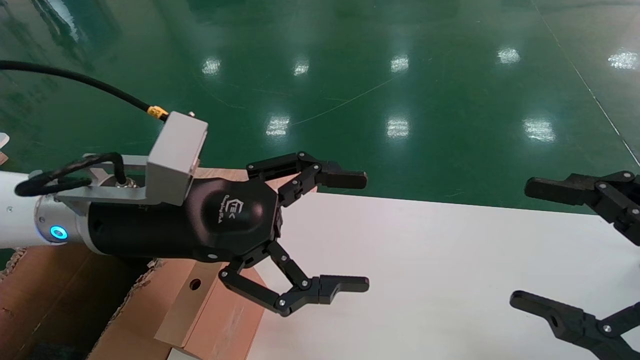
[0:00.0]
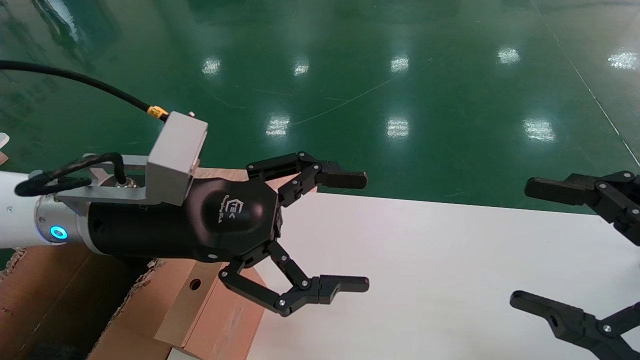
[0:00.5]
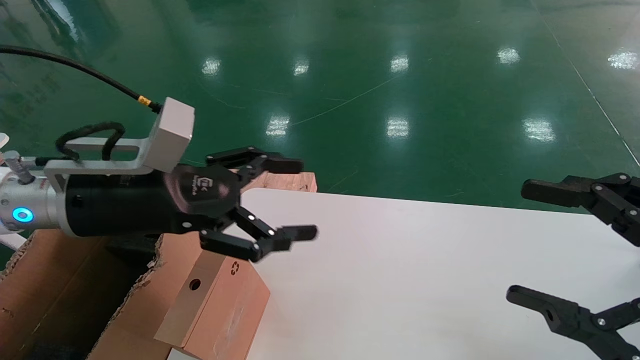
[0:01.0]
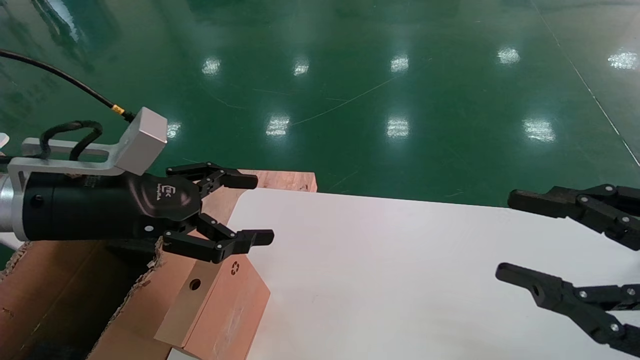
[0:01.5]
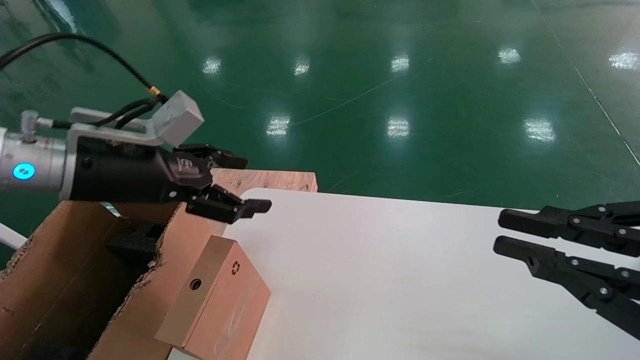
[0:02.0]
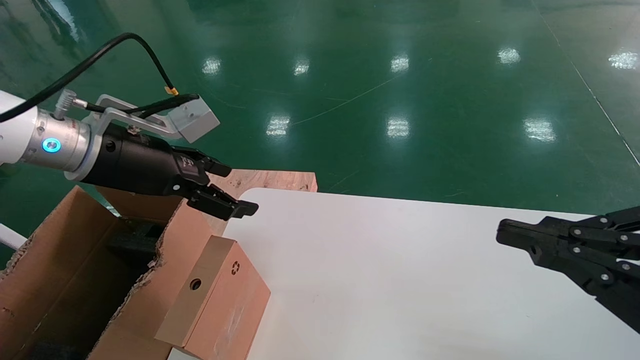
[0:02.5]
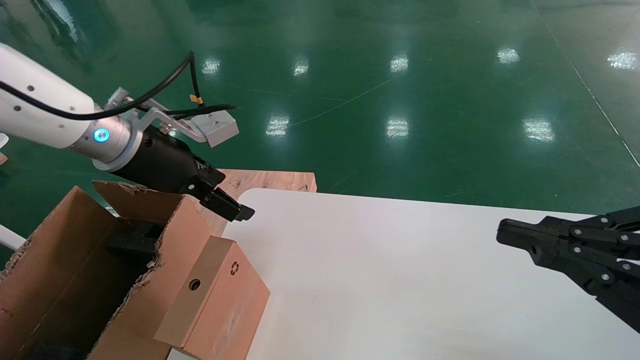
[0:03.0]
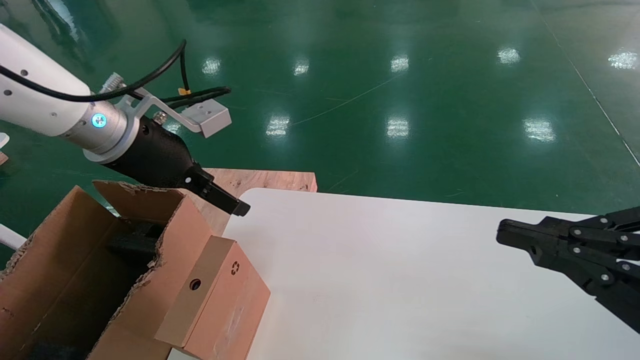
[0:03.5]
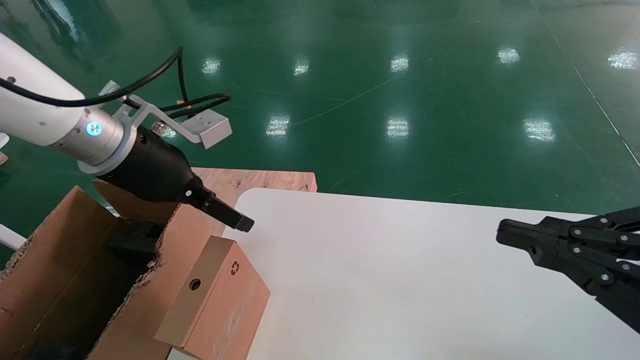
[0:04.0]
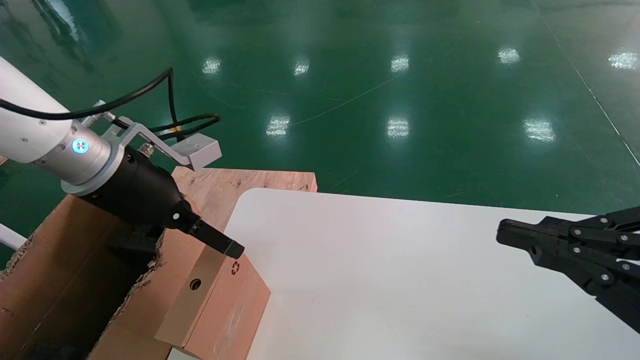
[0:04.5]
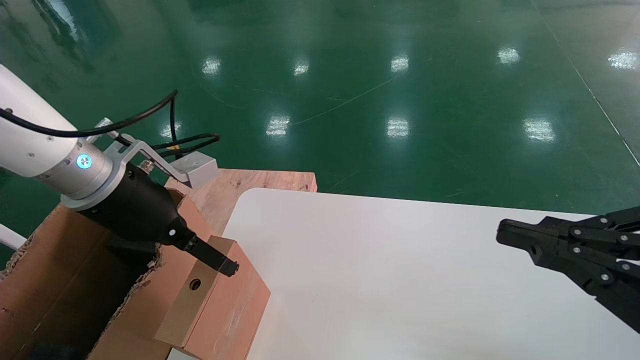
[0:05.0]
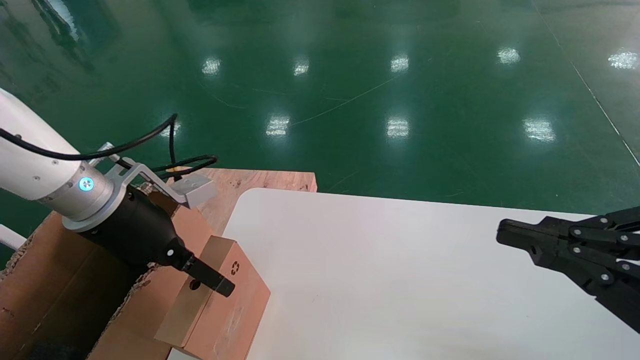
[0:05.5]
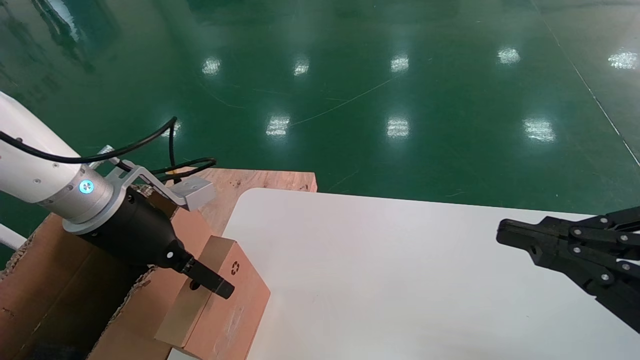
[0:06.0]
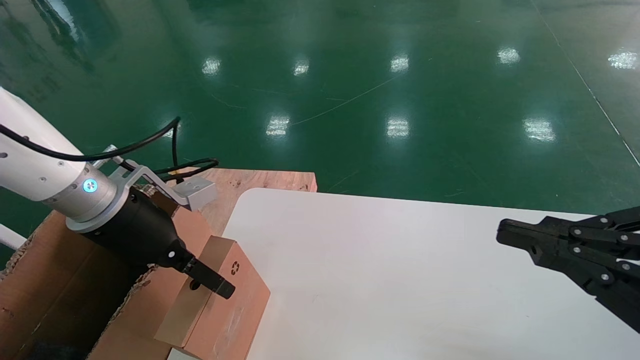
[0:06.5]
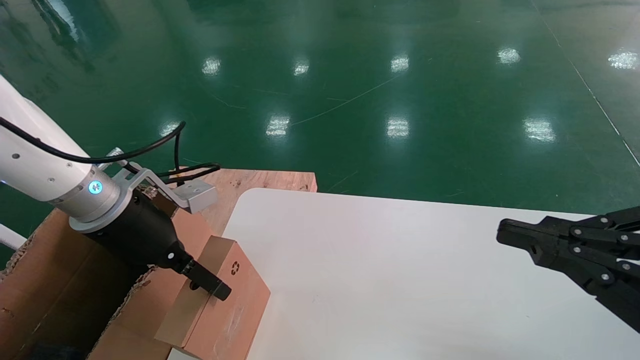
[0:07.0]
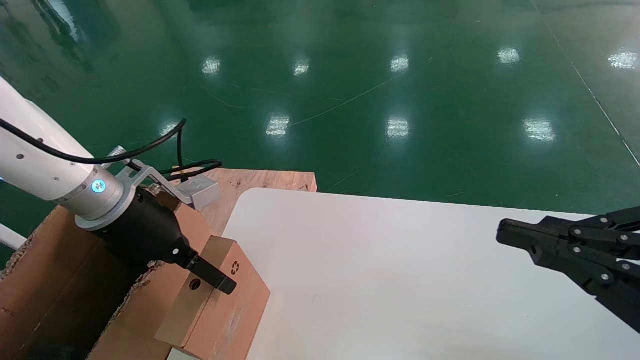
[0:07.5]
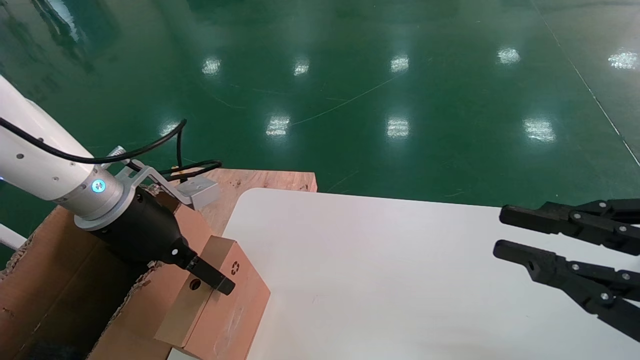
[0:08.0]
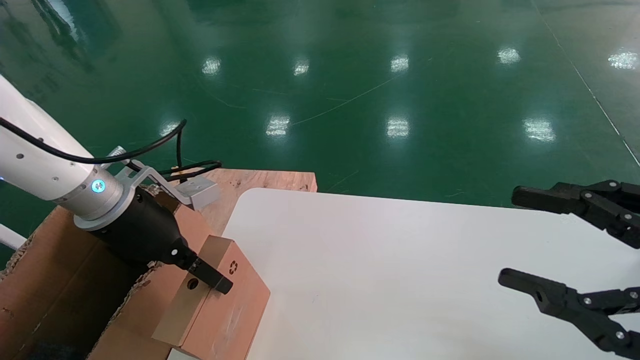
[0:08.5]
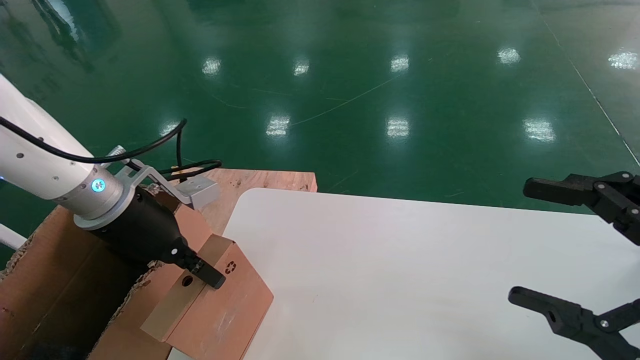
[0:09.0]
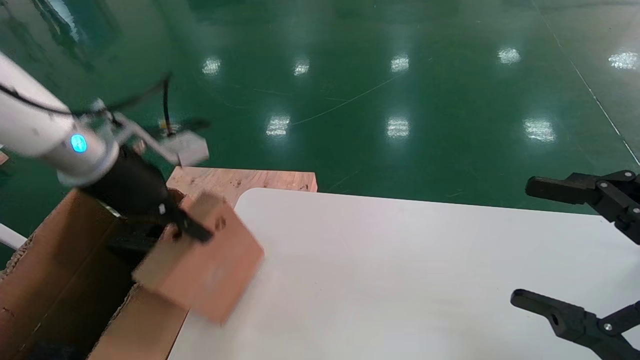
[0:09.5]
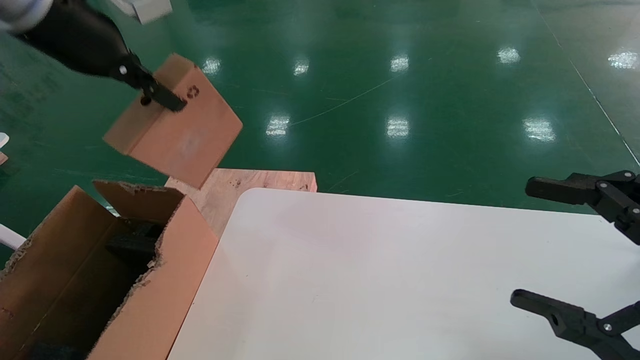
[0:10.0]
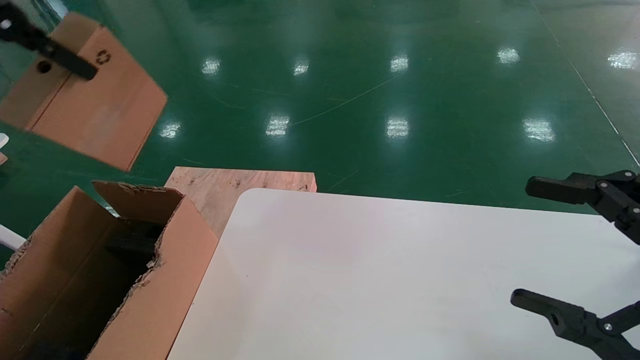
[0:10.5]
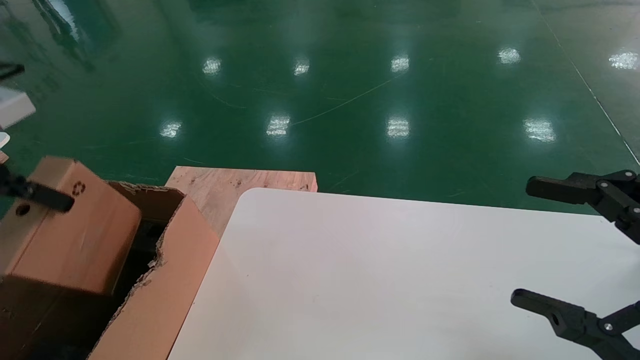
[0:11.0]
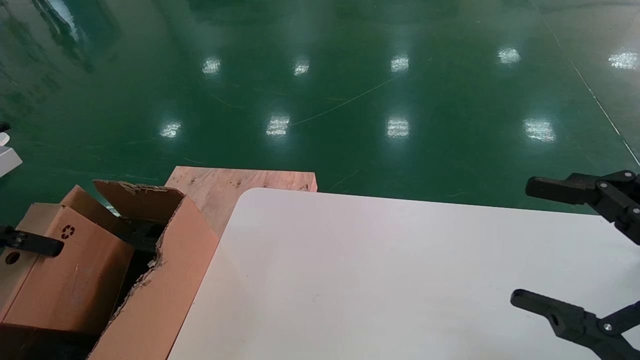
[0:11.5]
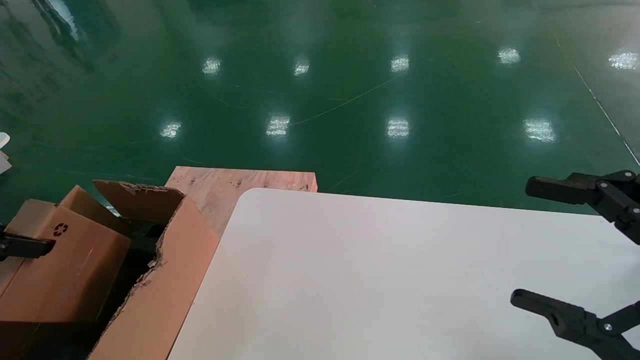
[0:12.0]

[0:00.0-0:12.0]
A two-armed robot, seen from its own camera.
Task of the whole recording: place the small box on the table into the large box on the left.
Step, 0:01.5 to 0:08.5: Pick up the mouse and the power cord paper box.
0:00.0 to 0:02.0: The right gripper closes its fingers. The left gripper is displaced to the left by some 10 cm.
0:04.0 to 0:06.0: The left gripper is displaced downward by some 5 cm.
0:06.0 to 0:08.0: There are only small adjustments of the grippers.
0:08.0 to 0:10.0: The right gripper opens up. The left gripper heads upward, covering about 20 cm, and closes its fingers.
0:10.0 to 0:12.0: The left gripper heads downward, to the left and backward, covering approximately 25 cm.

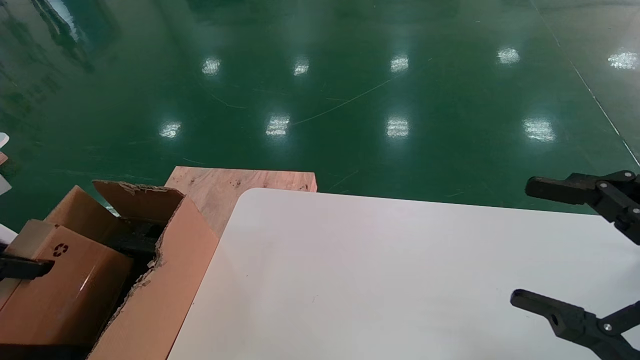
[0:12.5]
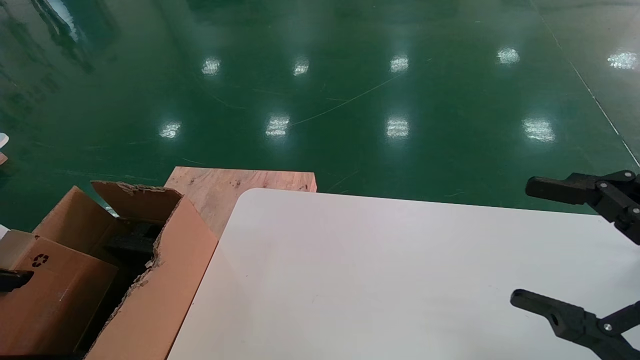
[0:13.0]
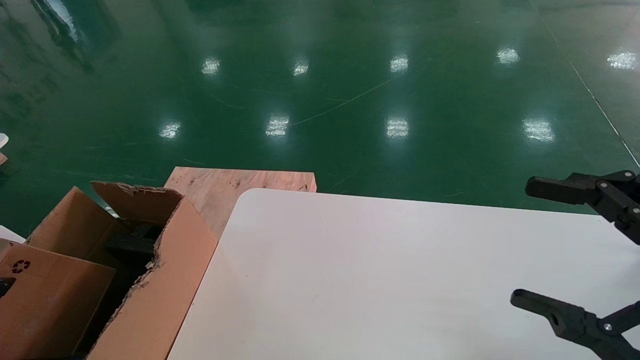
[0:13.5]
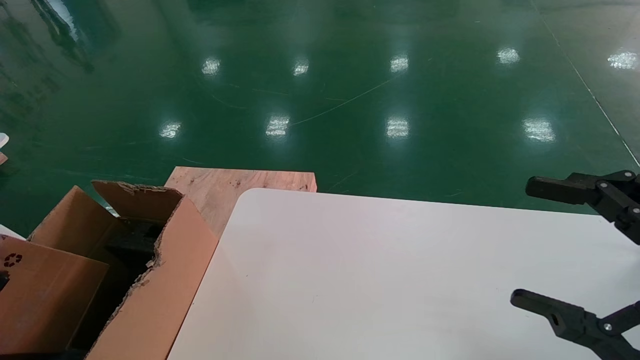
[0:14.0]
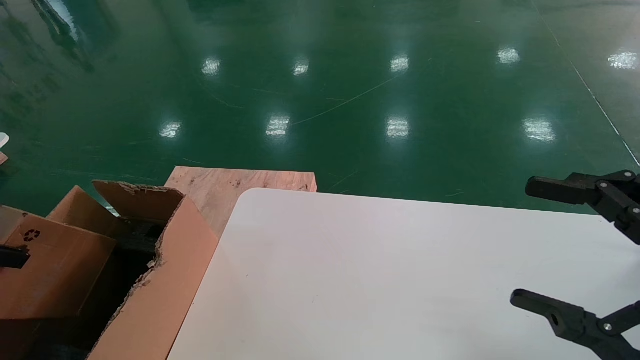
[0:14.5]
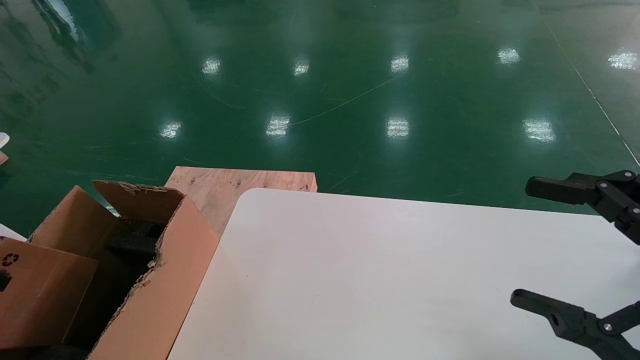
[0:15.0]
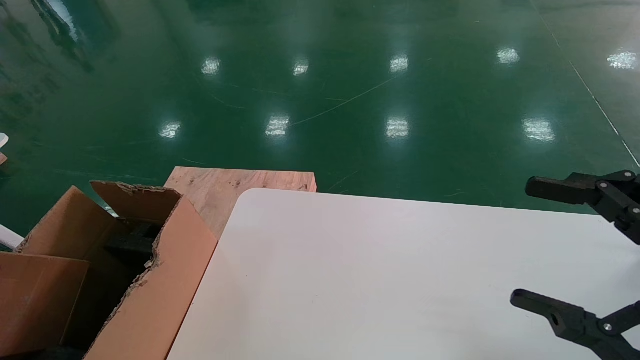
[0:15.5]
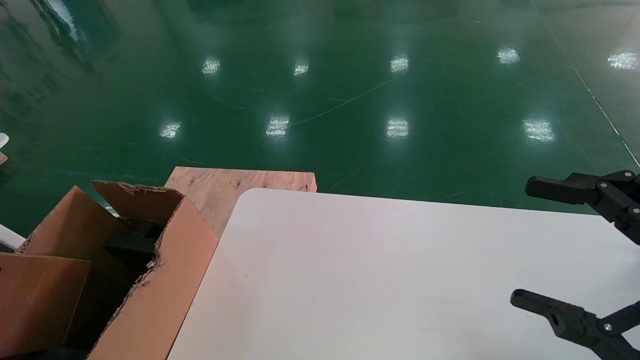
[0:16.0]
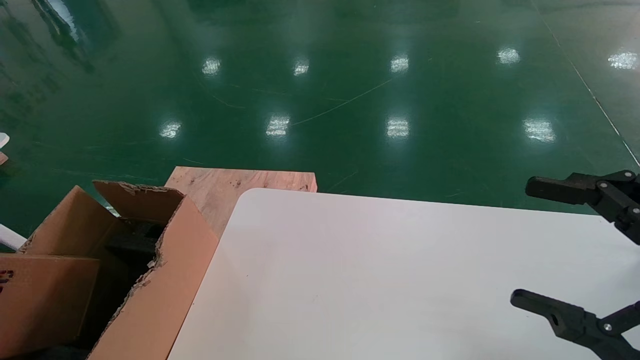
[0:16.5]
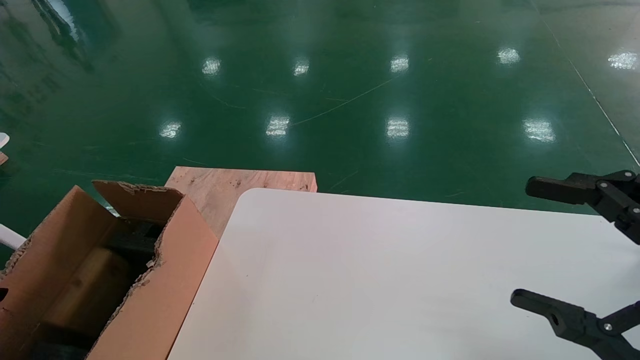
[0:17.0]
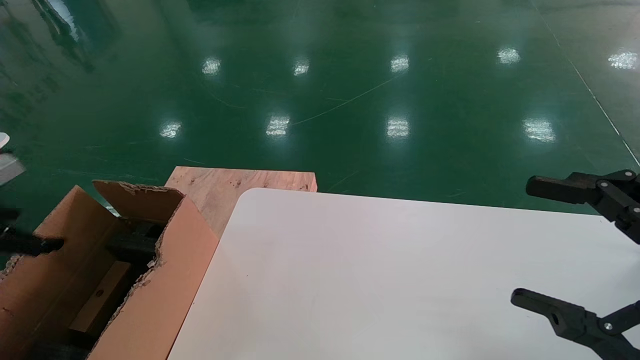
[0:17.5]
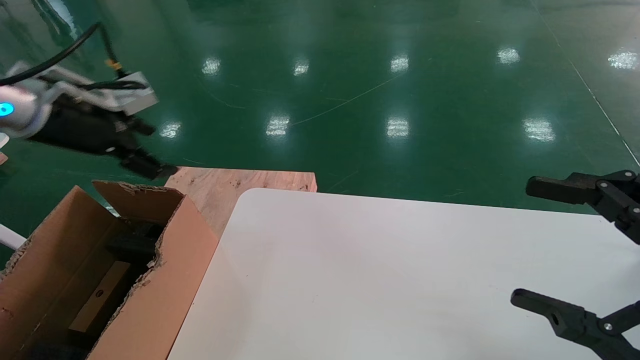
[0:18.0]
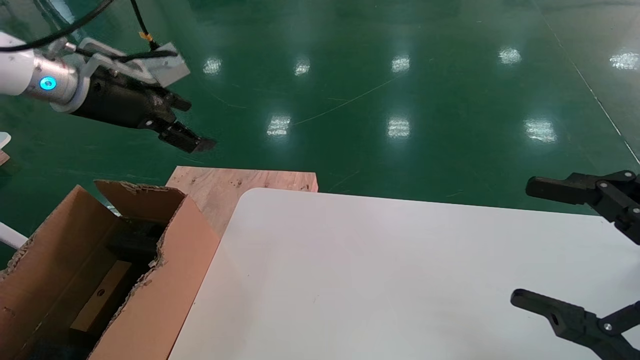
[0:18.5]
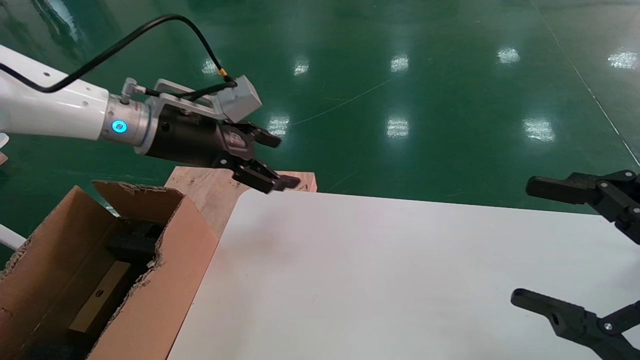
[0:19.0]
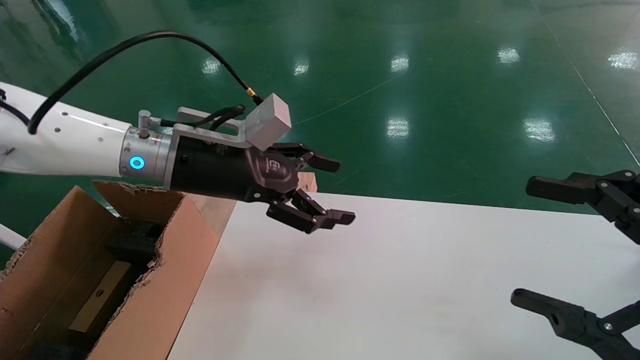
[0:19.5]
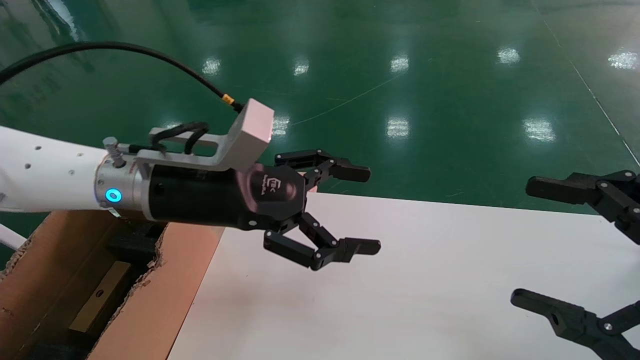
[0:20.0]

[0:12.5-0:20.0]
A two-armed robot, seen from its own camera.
Task of the whole recording: place the small box on the table into the large box on the left.
Step, 0:12.5 to 0:17.0: Place the mouse and the power cord paper box into the container.
0:12.5 to 0:14.5: The left gripper changes place by about 5 cm.
0:14.5 to 0:16.5: The left gripper ends up about 5 cm from where it was.
0:16.5 to 0:18.0: The left gripper is displaced forward, to the right and upward by about 25 cm, and opens.
0:18.0 to 0:20.0: The left gripper goes some 20 cm to the right.
